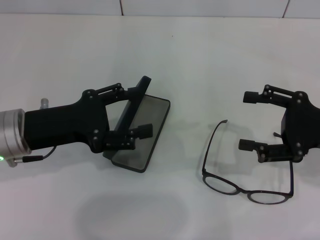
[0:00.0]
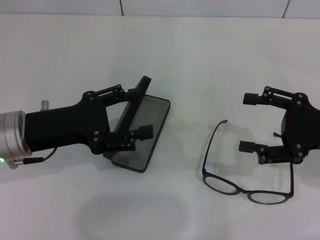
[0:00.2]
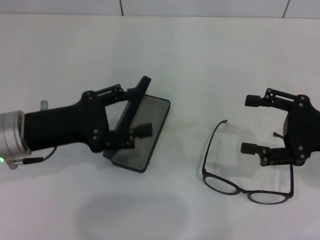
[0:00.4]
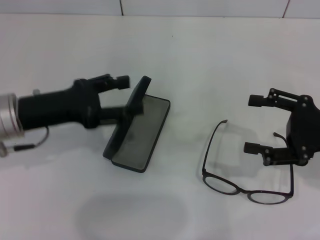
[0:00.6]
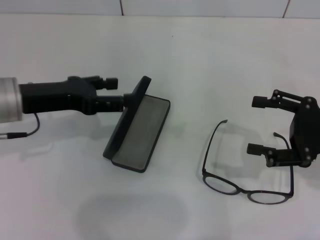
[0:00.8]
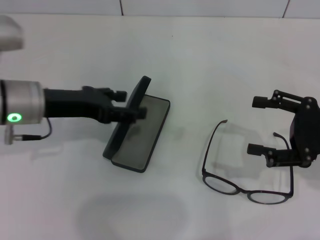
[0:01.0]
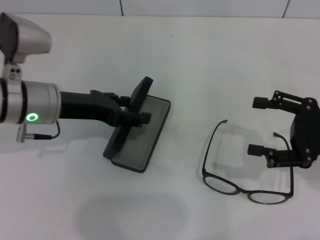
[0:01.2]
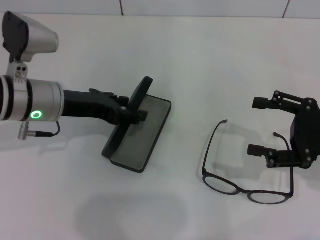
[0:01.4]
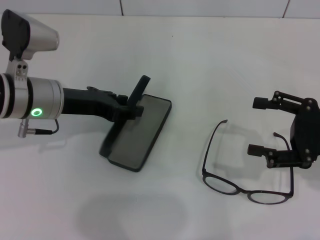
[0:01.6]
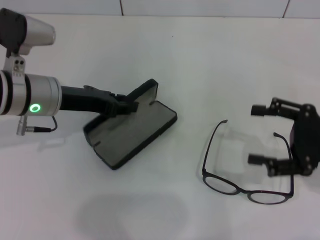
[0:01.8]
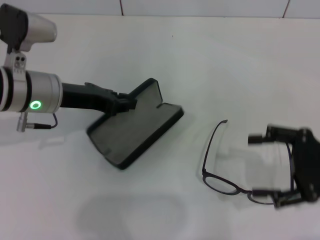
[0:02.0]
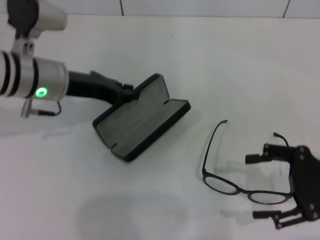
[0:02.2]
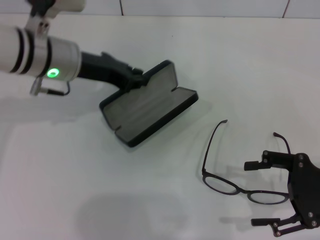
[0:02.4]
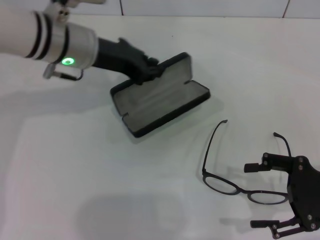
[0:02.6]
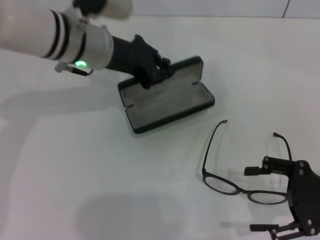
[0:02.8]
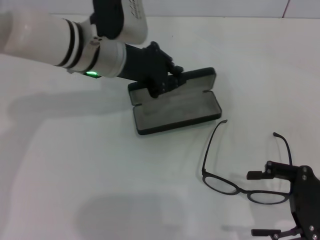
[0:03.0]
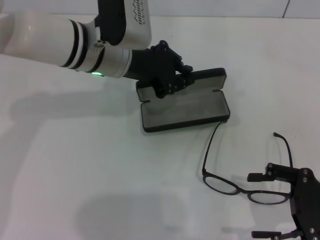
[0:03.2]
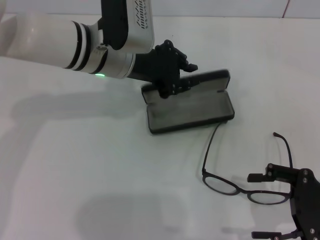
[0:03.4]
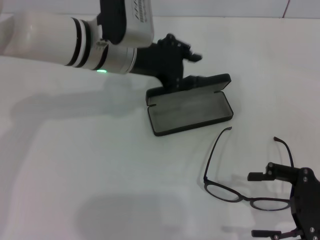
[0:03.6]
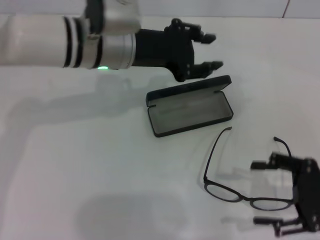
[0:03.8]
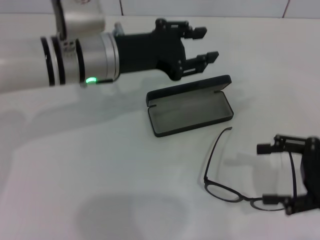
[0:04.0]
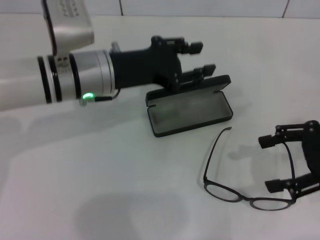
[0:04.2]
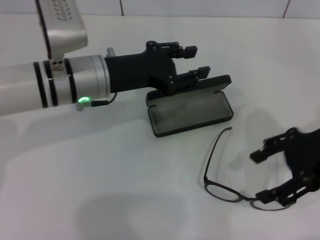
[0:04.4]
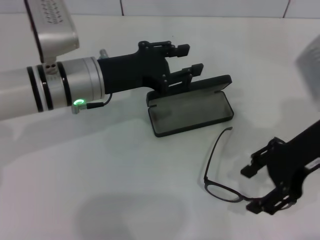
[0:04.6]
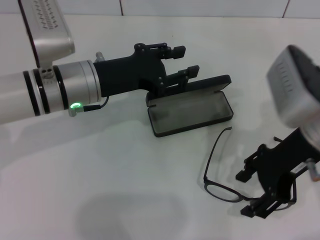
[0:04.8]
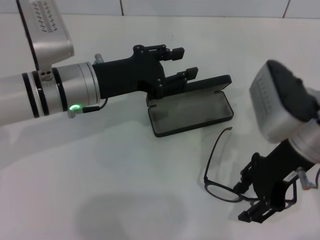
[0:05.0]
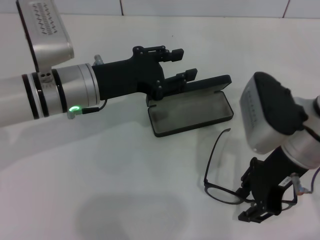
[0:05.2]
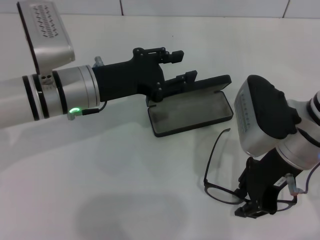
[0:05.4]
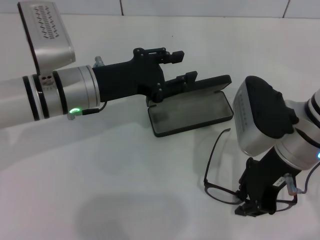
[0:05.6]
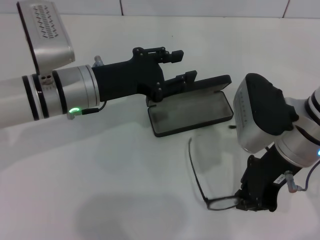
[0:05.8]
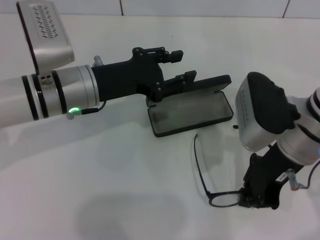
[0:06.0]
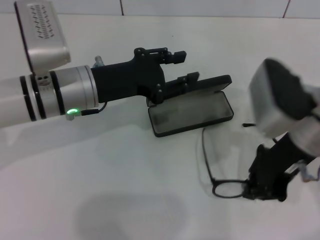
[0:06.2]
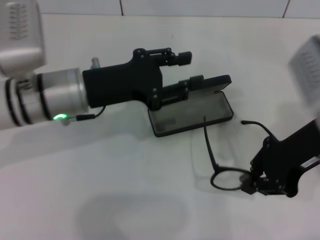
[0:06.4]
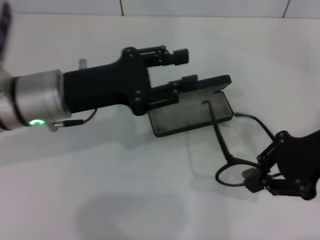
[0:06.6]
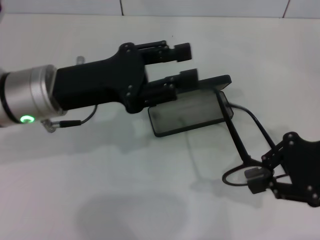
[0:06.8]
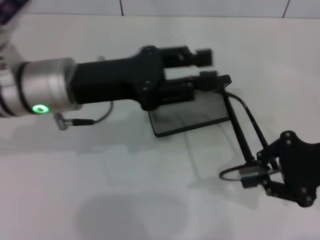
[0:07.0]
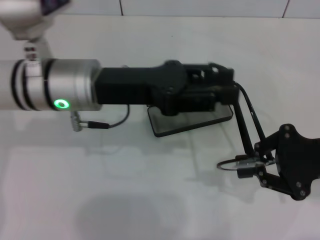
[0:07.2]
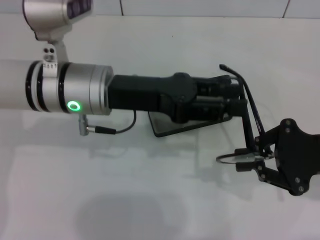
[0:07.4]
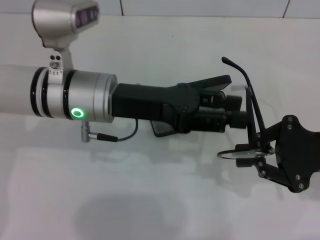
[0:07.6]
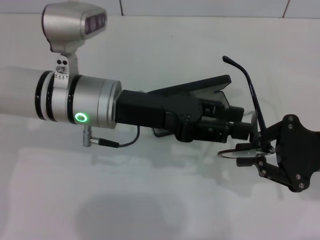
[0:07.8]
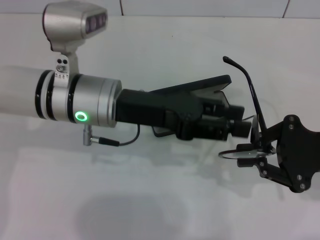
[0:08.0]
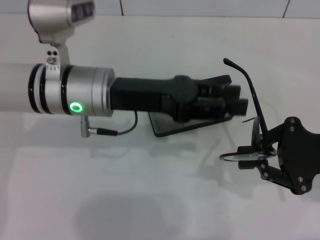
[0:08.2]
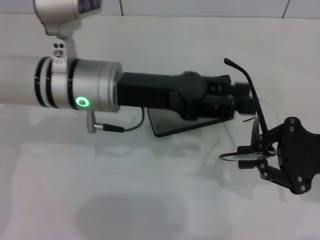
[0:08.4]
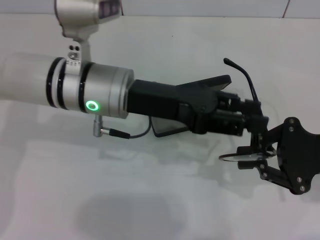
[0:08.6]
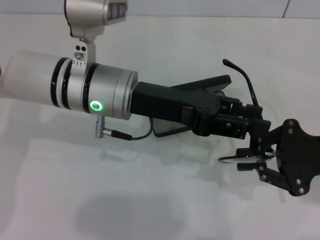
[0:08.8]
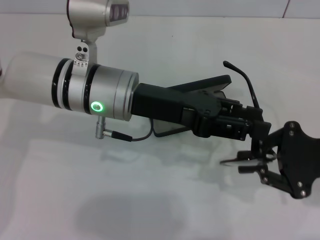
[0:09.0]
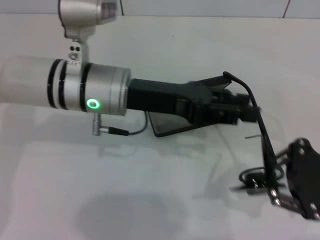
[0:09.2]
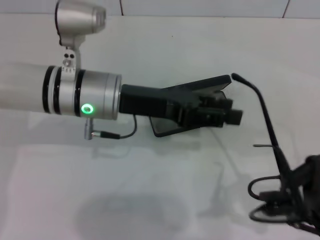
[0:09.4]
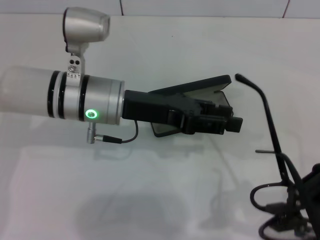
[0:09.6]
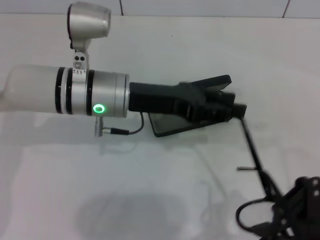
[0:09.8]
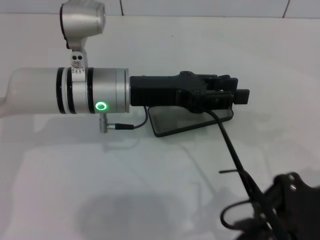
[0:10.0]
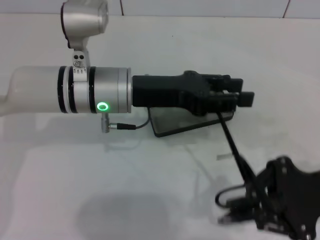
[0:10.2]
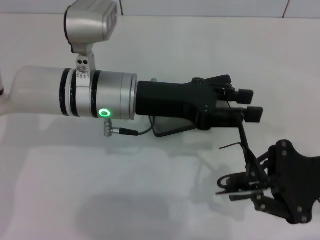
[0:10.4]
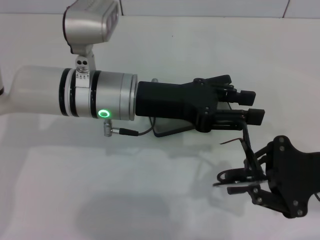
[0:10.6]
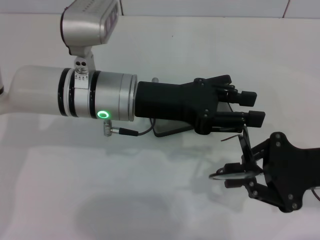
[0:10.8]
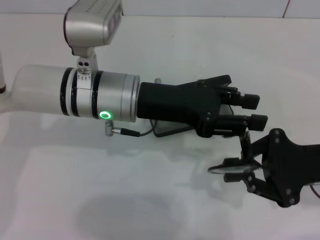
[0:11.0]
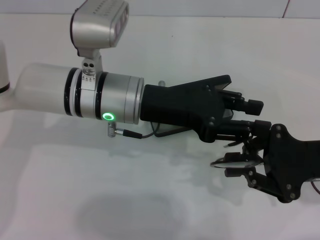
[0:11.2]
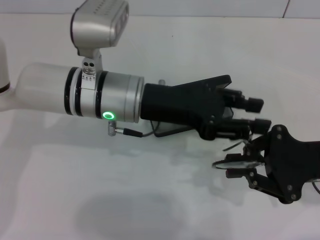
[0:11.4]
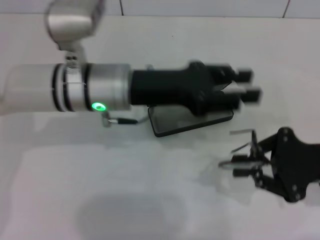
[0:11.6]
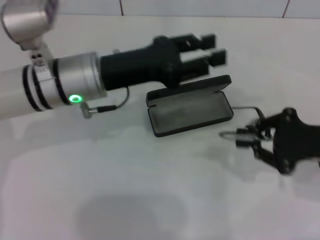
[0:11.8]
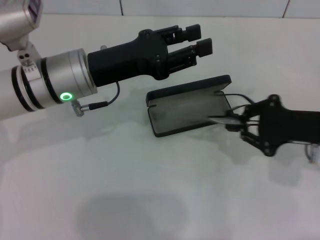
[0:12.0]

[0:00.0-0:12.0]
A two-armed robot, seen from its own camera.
Step, 0:00.0 to 0:01.8: Grab the glasses case with your left hand.
Step, 0:02.0 to 0:03.4: Place the glasses case in the center of the table with your left hand.
Step, 0:03.6 to 0:05.6: Grab the eyeglass frame with your right hand.
Step, 0:06.0 to 0:11.2: Fold the frame with your left hand.
0:00.0 to 0:01.6: The left gripper travels forward by some 5 cm.
0:01.6 to 0:03.0: The left gripper is displaced to the right by some 10 cm, and closes up. The right gripper moves approximately 5 cm.
0:03.0 to 0:04.4: The left gripper changes place by some 5 cm, and opens its fingers; the right gripper heads upward and forward, covering some 15 cm.
0:04.4 to 0:06.0: The right gripper heads to the left, covering some 10 cm, and closes its fingers.
0:06.0 to 0:07.6: The right gripper is displaced to the right by roughly 10 cm.
0:07.6 to 0:09.0: The grippers move only a little.
0:10.4 to 0:12.0: The left gripper shifts approximately 5 cm to the left.

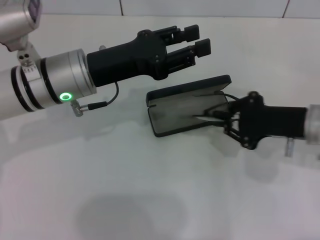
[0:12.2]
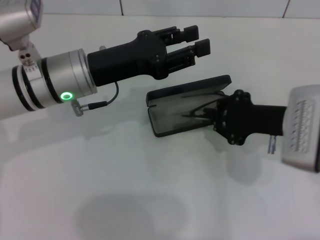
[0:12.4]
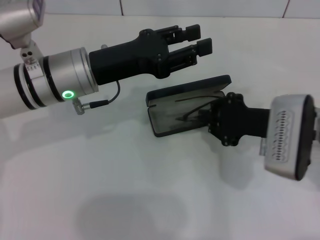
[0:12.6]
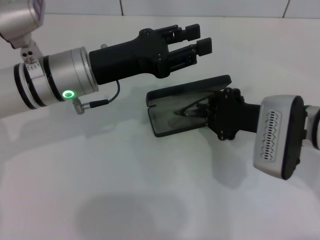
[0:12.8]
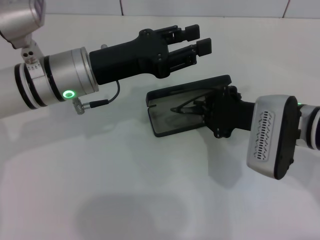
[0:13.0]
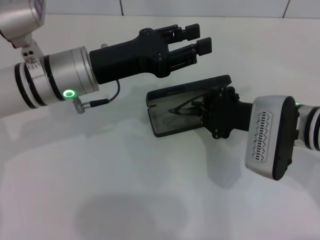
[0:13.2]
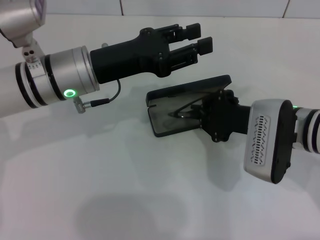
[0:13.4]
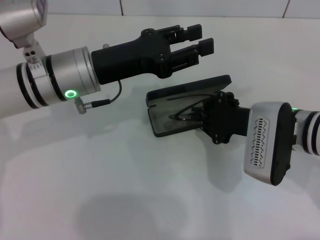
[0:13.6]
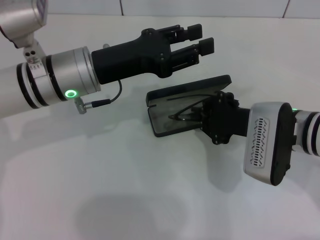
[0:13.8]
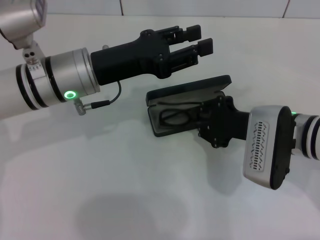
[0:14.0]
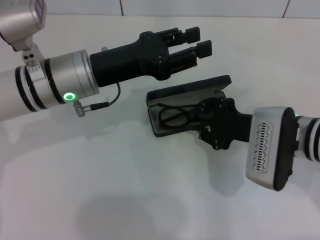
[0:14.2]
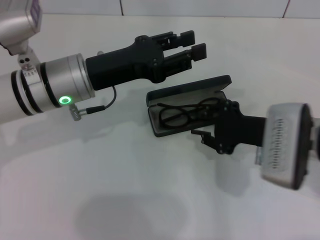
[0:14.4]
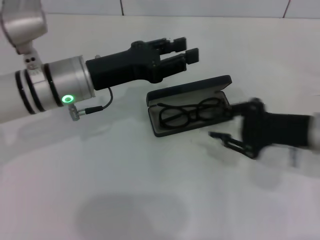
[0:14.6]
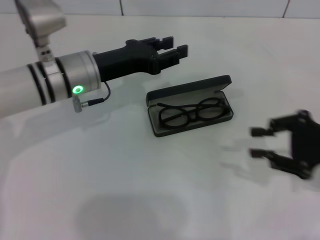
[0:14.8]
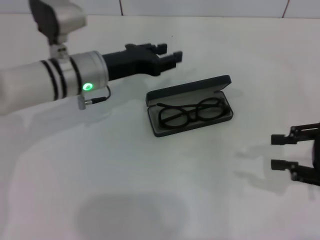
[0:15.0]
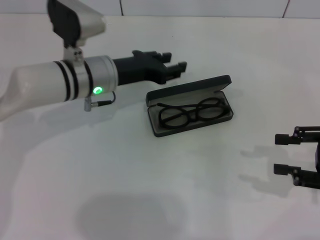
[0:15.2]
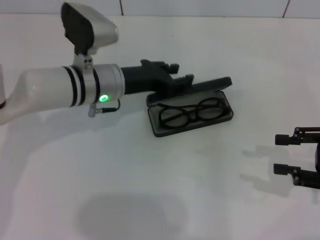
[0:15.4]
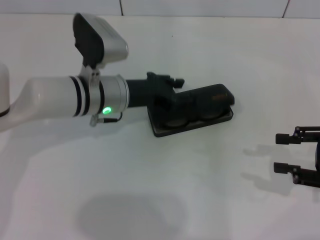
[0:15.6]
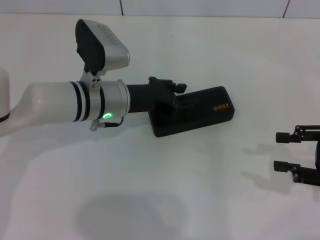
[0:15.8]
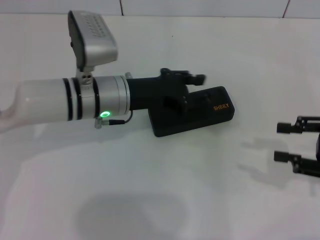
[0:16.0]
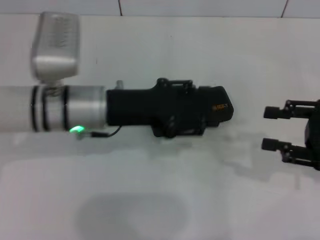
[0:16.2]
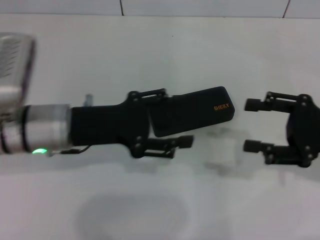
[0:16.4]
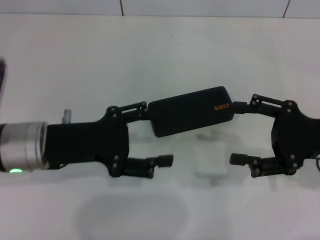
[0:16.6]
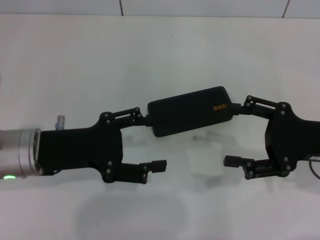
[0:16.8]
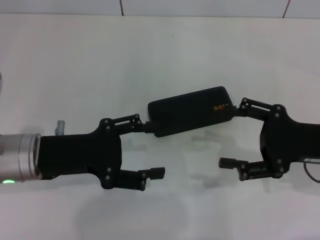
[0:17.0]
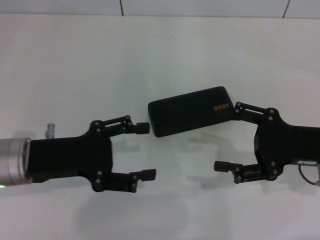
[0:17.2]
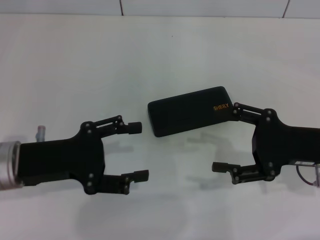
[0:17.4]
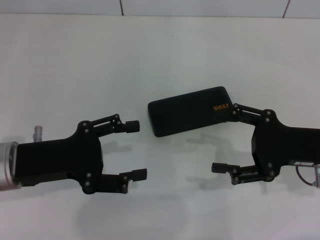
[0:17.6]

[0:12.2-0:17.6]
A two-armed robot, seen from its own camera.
Step, 0:12.2 to 0:14.0: Put the glasses into the case with your right hand.
Step, 0:14.2 to 0:15.6: Close the glasses case with your left hand.
0:12.2 to 0:13.6: The right gripper heads to the left, covering approximately 5 cm.
0:13.6 to 0:15.0: The left gripper ends up roughly 5 cm from where it was. Meanwhile the right gripper goes about 15 cm to the right.
0:15.0 to 0:16.2: The left gripper moves backward, some 5 cm.
0:16.2 to 0:17.6: The right gripper moves to the left, roughly 5 cm, and opens up. The left gripper moves to the left and backward, some 15 cm, and opens up.

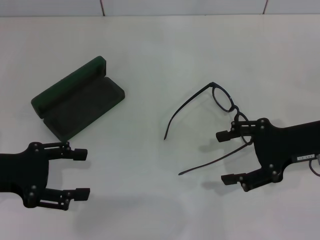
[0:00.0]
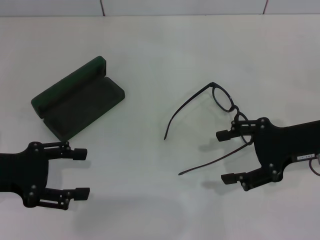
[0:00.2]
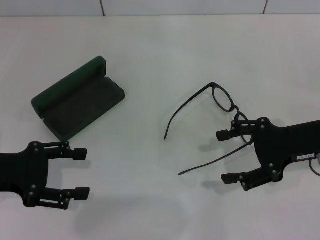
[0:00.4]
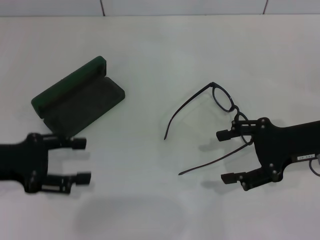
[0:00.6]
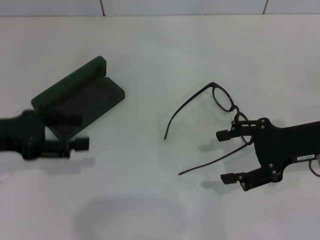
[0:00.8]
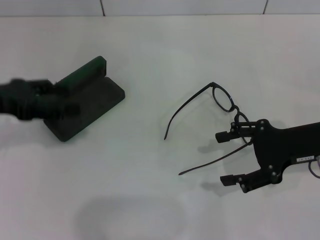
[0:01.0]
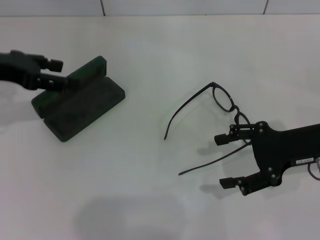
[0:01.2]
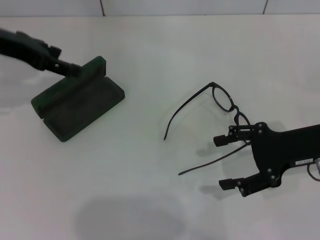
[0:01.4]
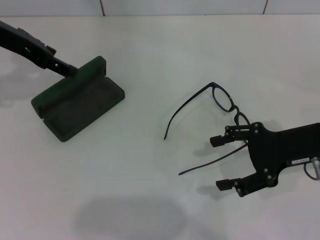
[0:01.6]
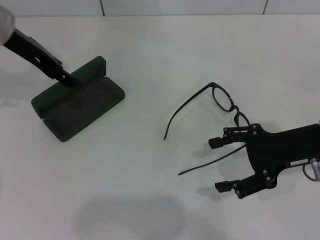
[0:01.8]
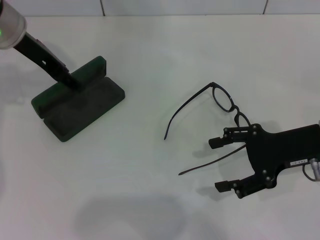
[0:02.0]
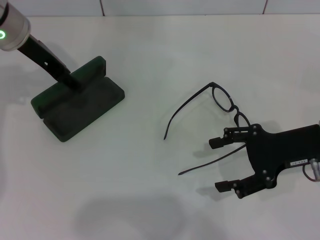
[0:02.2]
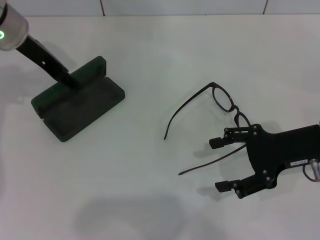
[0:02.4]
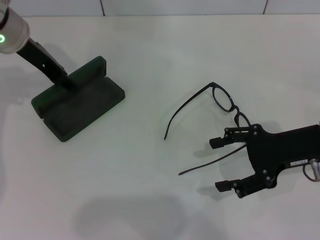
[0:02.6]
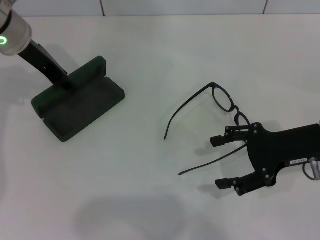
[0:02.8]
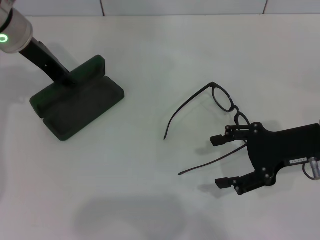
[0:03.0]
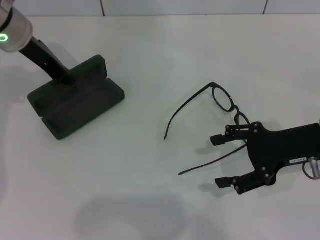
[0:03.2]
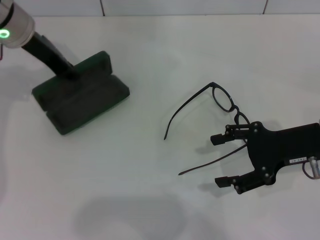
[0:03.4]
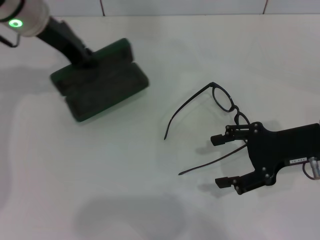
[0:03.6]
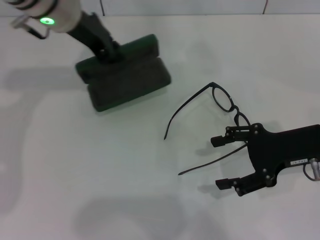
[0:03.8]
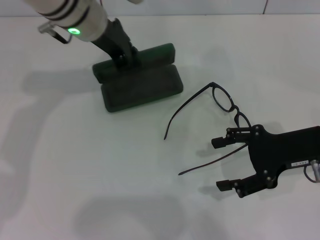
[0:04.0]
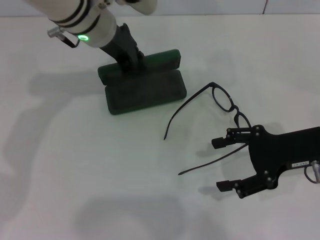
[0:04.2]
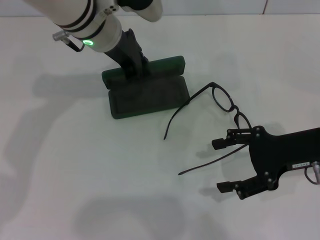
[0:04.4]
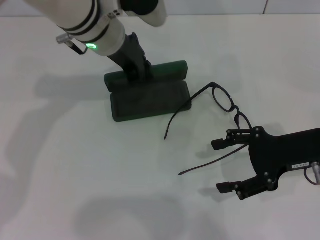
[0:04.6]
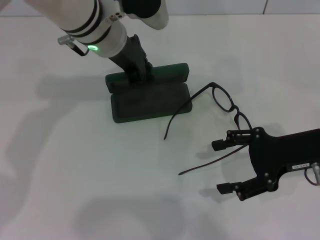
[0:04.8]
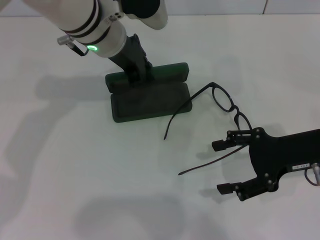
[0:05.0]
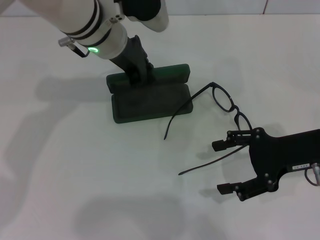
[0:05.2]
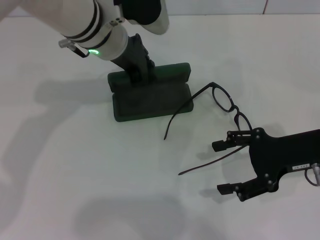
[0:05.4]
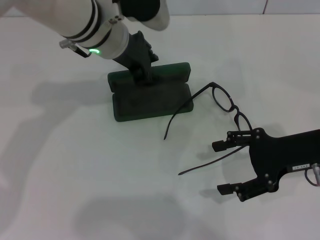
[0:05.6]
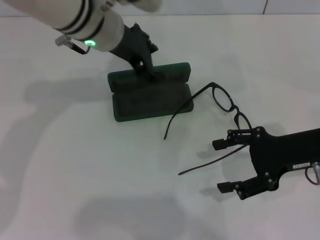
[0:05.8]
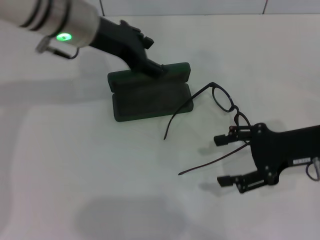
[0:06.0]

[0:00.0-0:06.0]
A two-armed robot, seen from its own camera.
Step, 0:00.0 to 0:02.4: Grab the glasses case with your left hand.
Step, 0:02.6 to 0:05.4: Place the glasses case in the center of the table with your left hand.
0:00.0 to 0:01.6: The left gripper travels forward and upward by about 20 cm.
0:01.6 to 0:03.0: The left gripper ends up some 5 cm from where it was.
0:03.0 to 0:04.4: The left gripper is displaced to the right by about 10 cm.
0:04.4 to 0:06.0: The left gripper changes place by about 5 cm, and opens.
